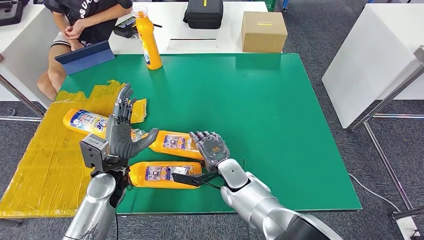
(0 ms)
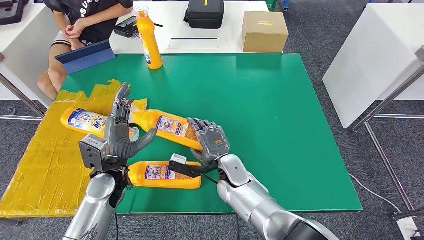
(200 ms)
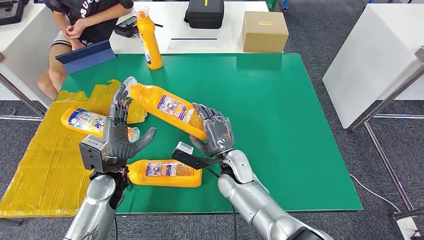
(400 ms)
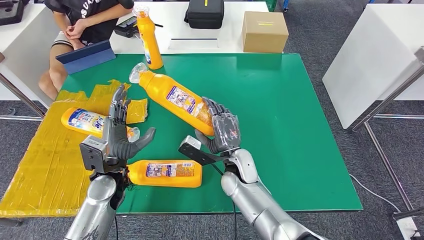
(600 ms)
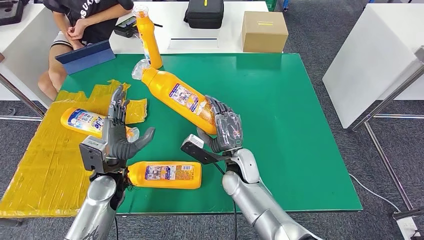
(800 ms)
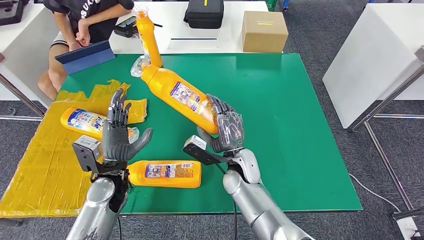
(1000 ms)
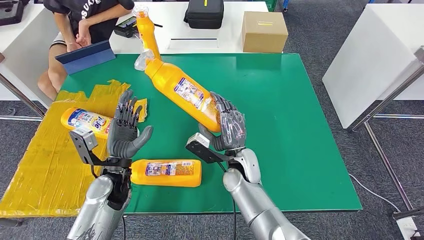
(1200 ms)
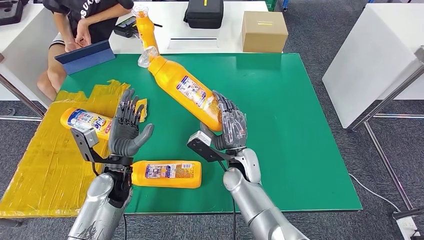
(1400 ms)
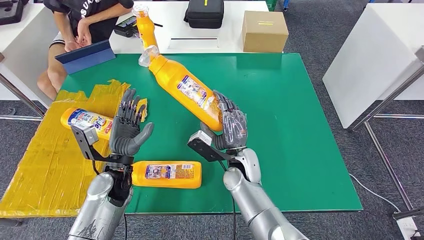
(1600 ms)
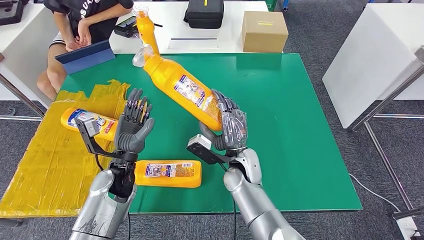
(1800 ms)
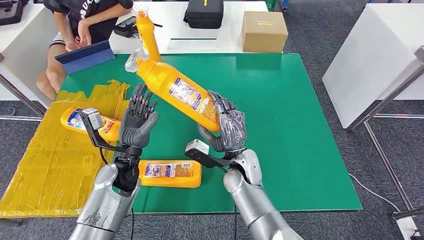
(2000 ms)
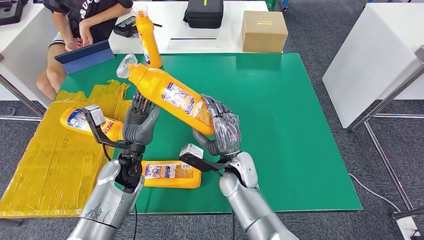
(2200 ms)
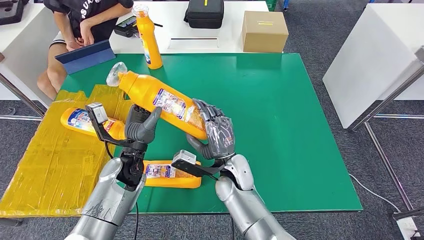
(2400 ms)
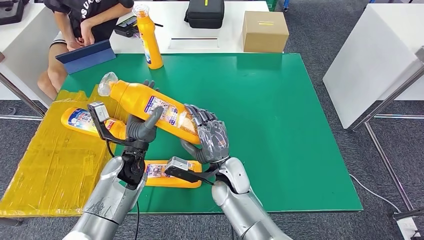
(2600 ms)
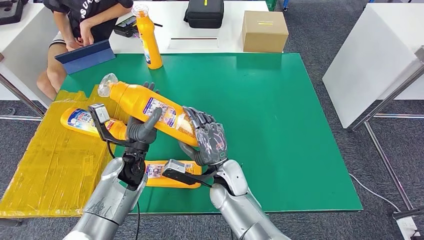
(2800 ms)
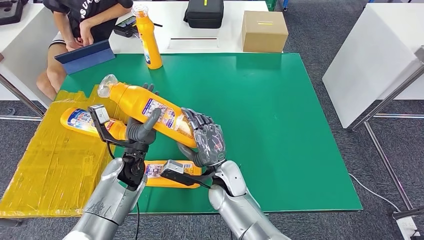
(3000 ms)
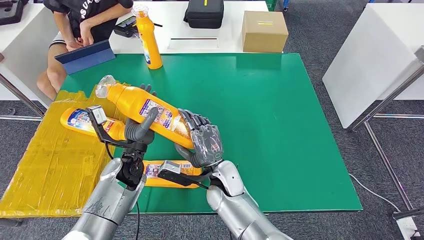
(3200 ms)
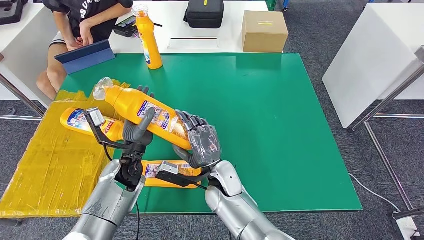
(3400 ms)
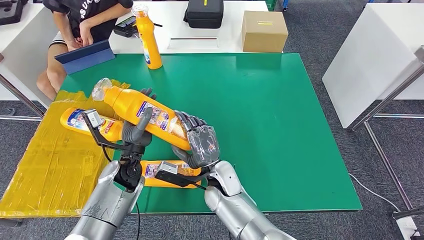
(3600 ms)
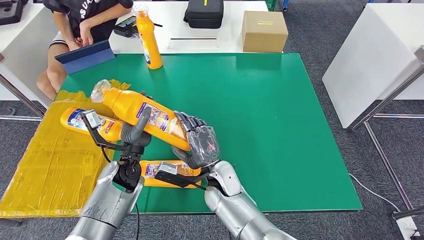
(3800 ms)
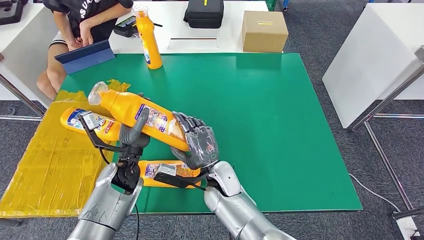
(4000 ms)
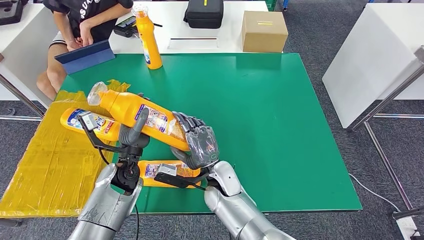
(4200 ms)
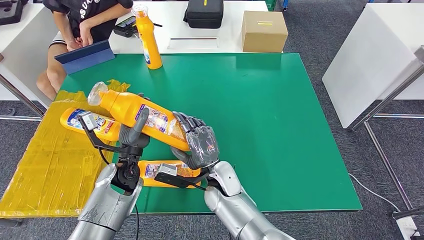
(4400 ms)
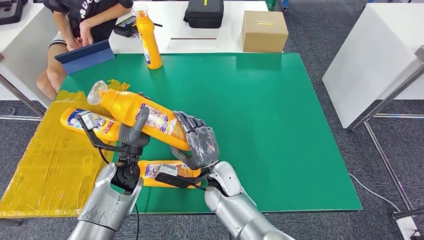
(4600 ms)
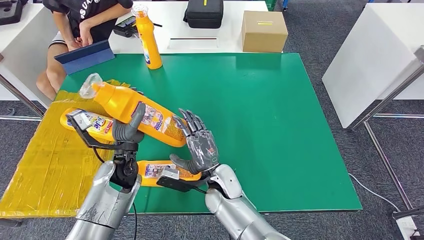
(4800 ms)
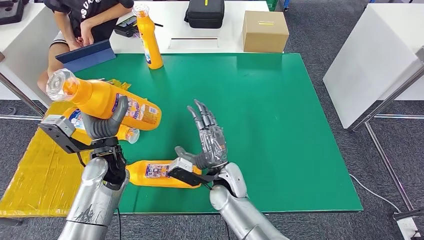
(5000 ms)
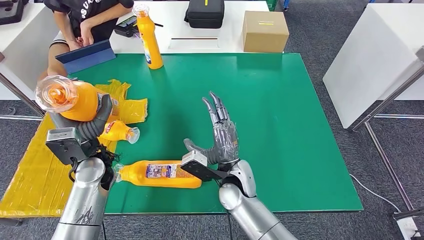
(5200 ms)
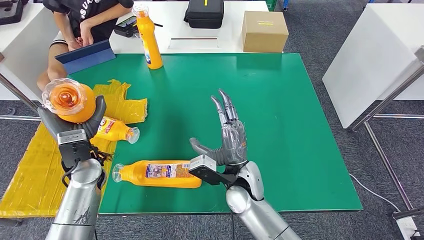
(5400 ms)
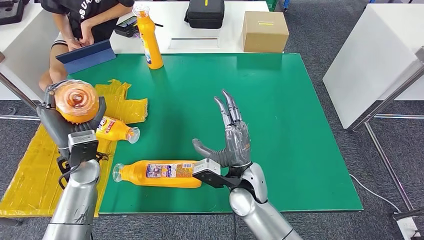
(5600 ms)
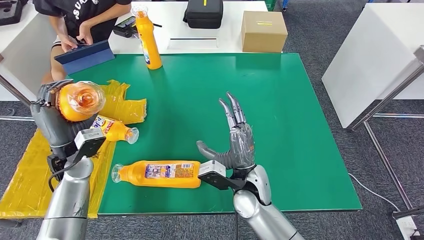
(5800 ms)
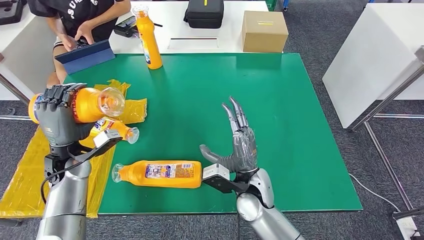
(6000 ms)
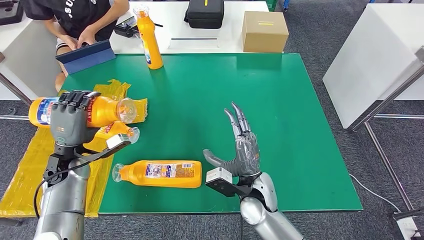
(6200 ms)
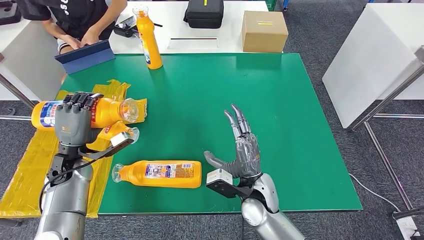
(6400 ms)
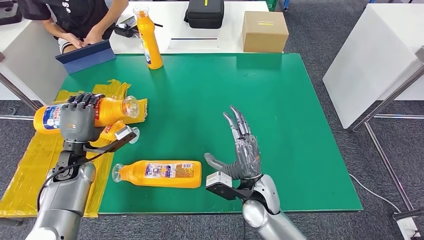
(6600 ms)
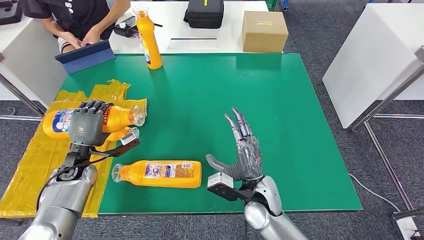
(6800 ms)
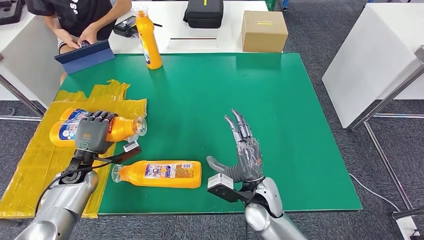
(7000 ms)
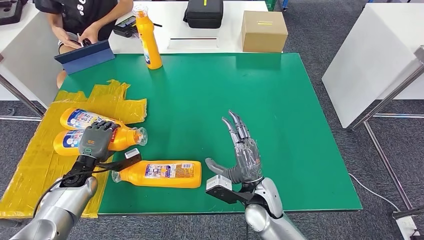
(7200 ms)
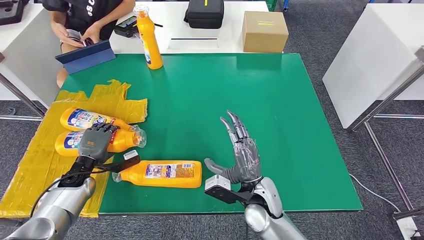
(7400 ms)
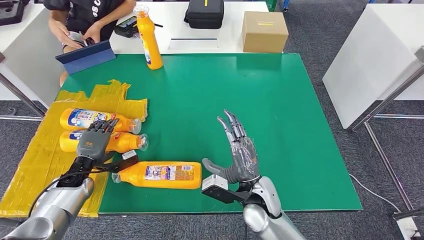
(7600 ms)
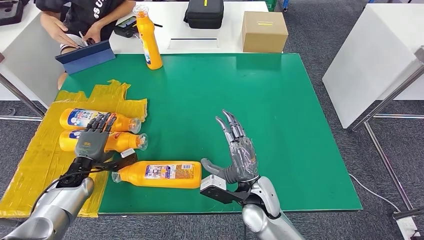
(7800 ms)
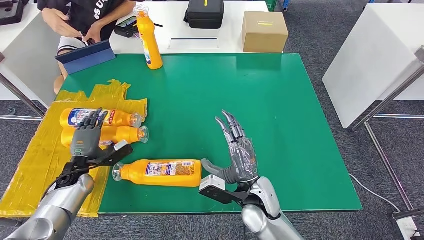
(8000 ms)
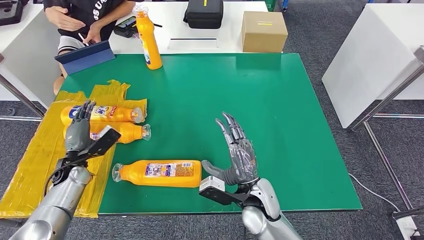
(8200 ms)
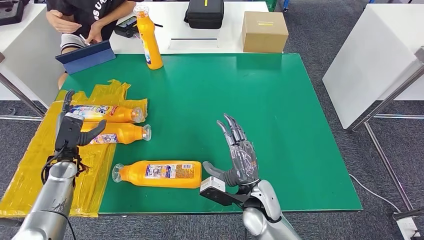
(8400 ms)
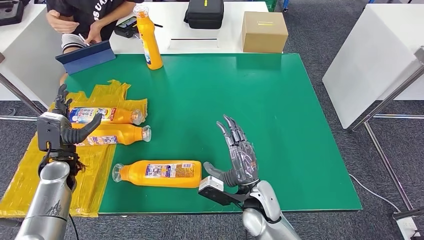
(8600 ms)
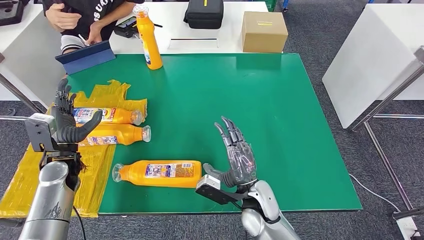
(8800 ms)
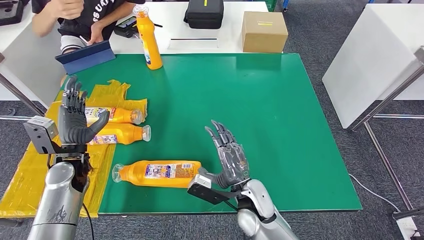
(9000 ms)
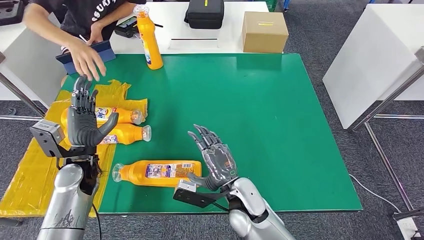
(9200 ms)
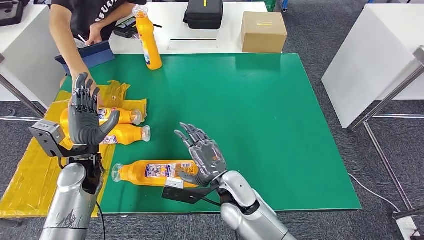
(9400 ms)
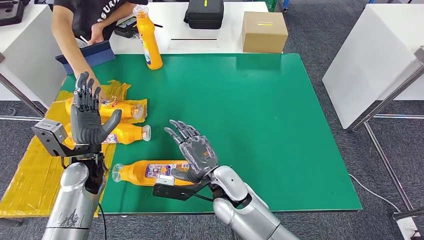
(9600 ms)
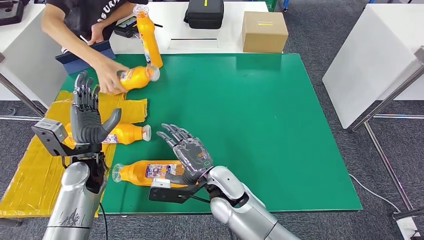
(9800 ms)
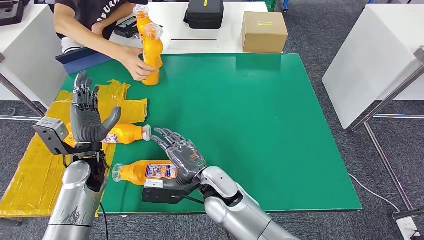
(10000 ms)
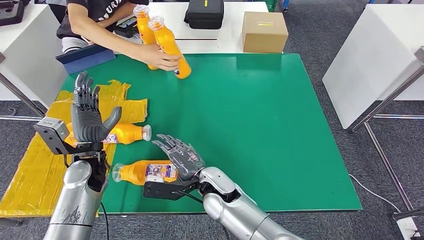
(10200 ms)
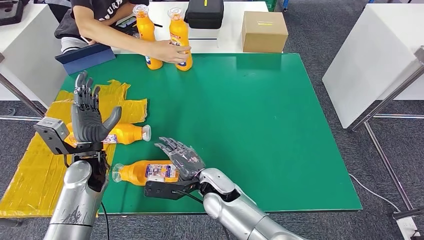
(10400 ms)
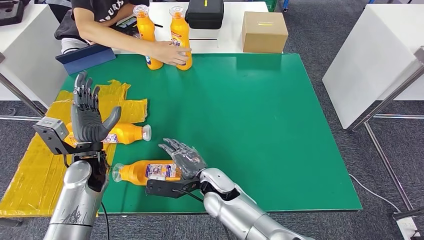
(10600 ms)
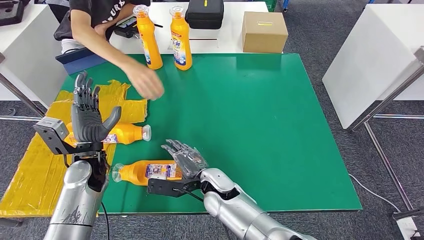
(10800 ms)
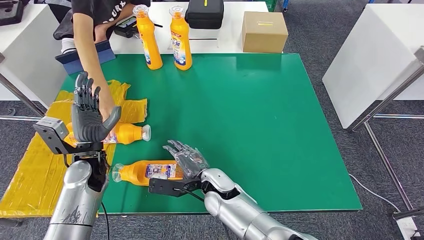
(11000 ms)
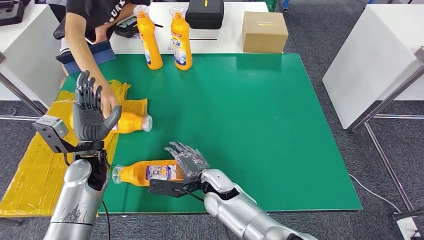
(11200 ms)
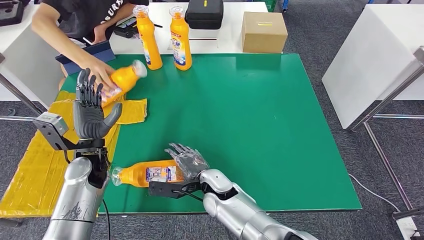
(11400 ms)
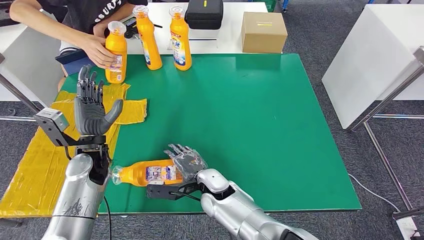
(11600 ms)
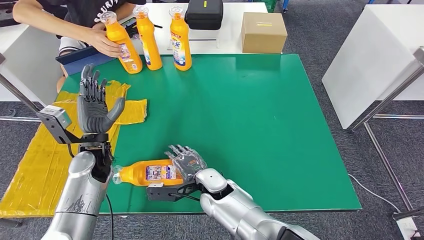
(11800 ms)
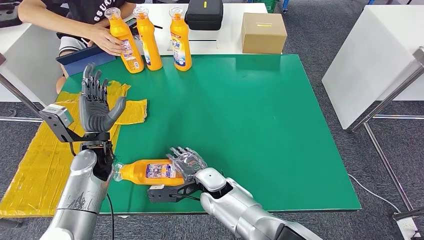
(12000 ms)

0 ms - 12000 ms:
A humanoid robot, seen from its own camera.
Step, 0 ms - 2800 ms: Pick up the fast-moving consumer goods bottle from the table.
Step, 4000 ms - 8000 ms: Flip the fast-moving consumer goods bottle to the front side.
0 ms - 1600 ms: The right hand ends up roughly 5 cm from where it was.
1600 ms - 3000 ms: The right hand changes place by some 5 cm.
3000 ms - 4400 ms: The hands make only small movements.
6000 ms - 7600 ms: The left hand moves downward, approximately 10 cm.
7600 ms - 9000 ms: The left hand travels upward by roughly 10 cm.
9000 ms - 10400 ms: The left hand heads to the right, covering some 5 cm. The right hand travels to the left by some 10 cm.

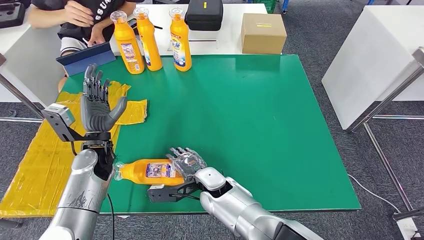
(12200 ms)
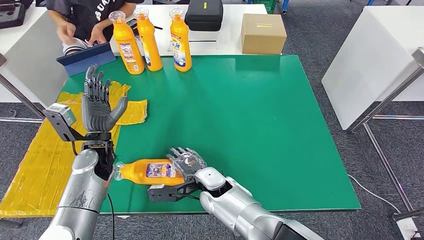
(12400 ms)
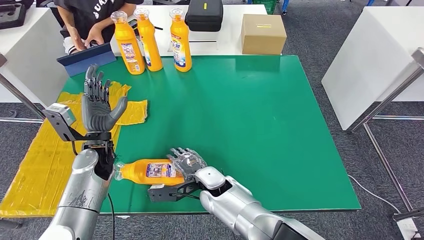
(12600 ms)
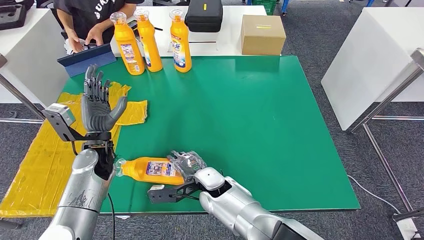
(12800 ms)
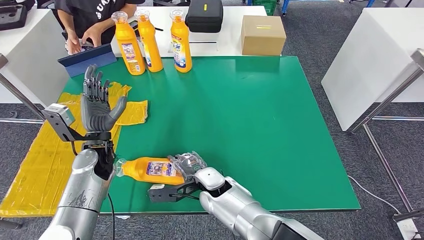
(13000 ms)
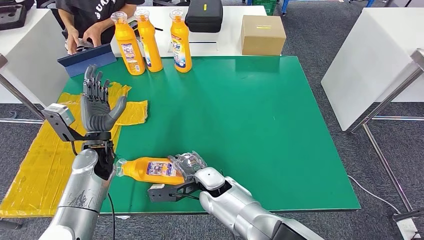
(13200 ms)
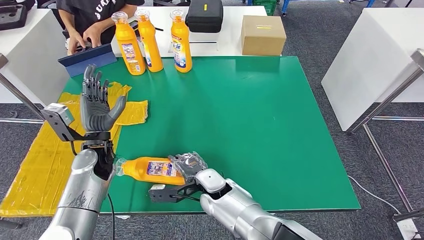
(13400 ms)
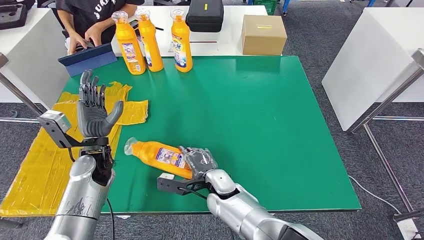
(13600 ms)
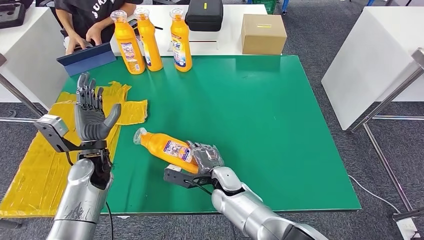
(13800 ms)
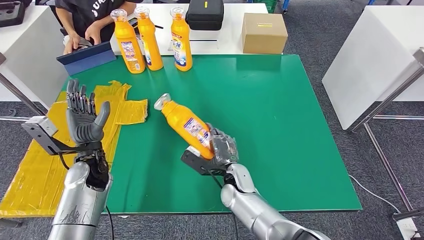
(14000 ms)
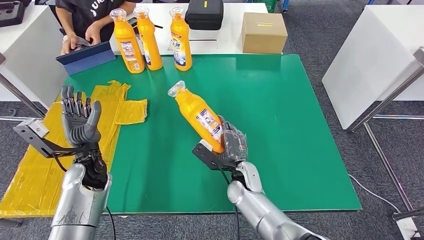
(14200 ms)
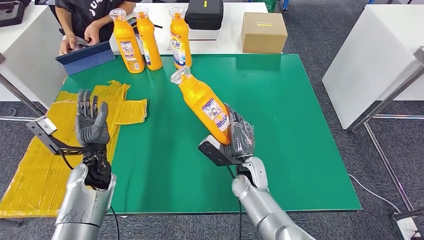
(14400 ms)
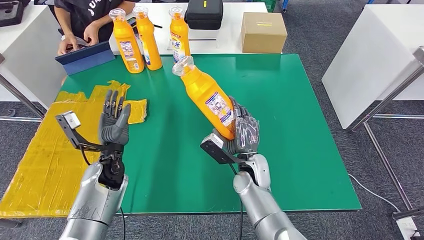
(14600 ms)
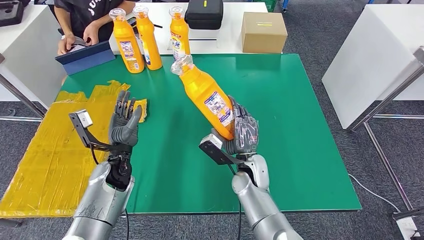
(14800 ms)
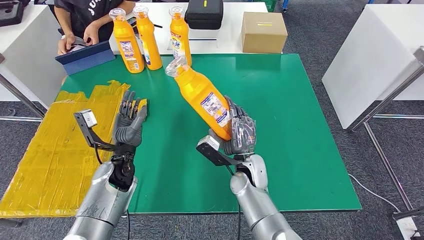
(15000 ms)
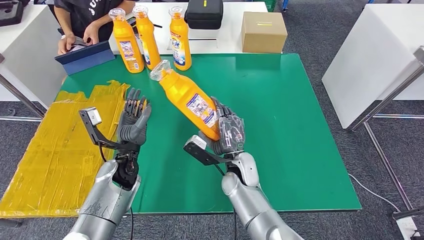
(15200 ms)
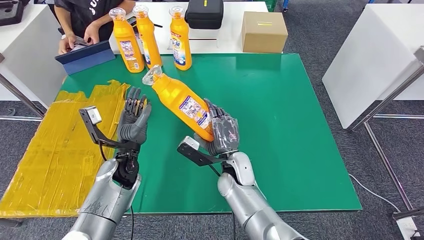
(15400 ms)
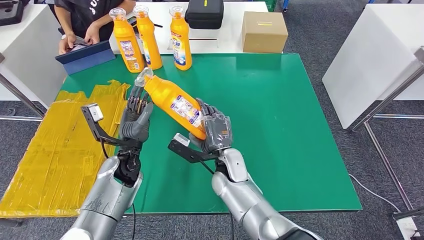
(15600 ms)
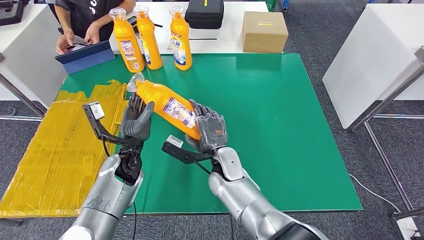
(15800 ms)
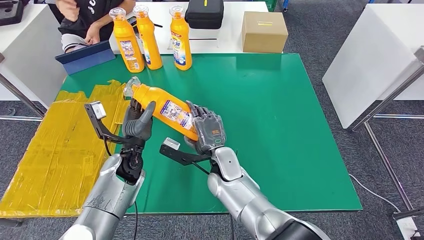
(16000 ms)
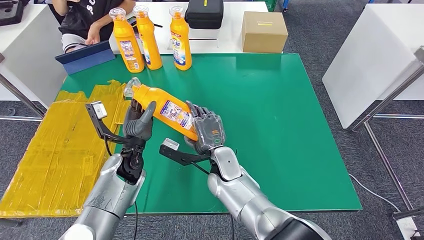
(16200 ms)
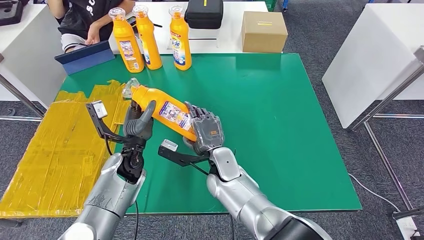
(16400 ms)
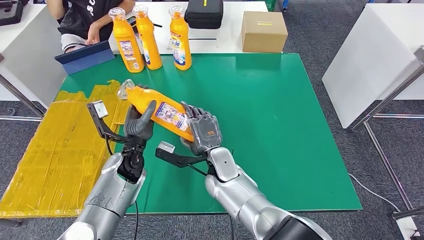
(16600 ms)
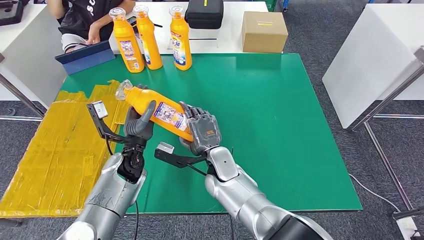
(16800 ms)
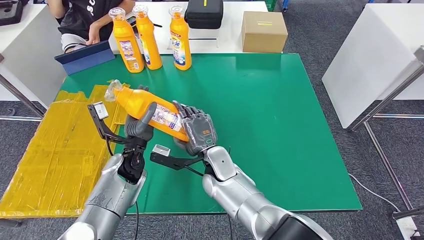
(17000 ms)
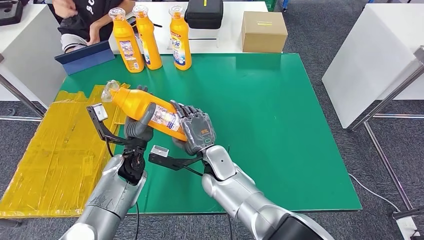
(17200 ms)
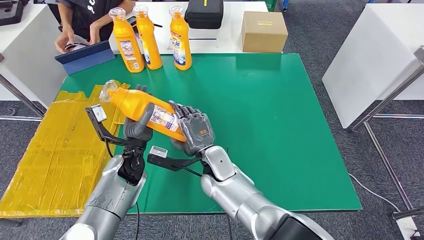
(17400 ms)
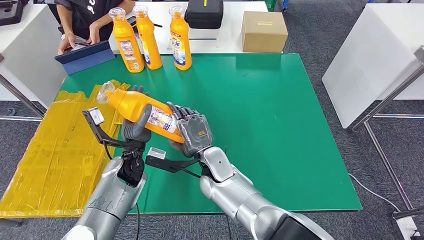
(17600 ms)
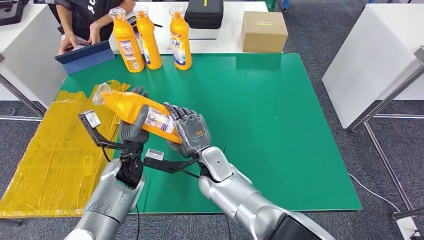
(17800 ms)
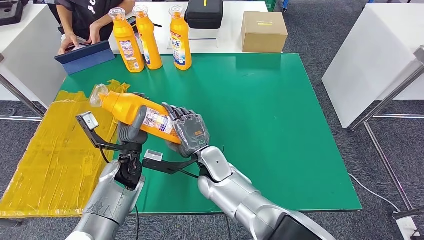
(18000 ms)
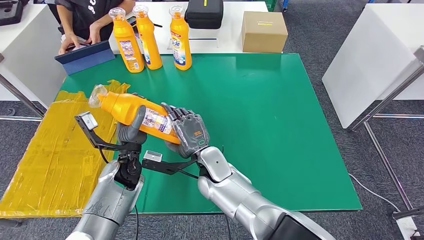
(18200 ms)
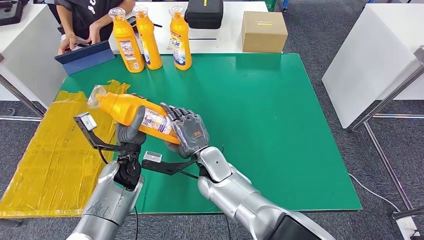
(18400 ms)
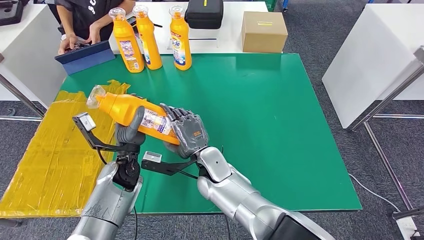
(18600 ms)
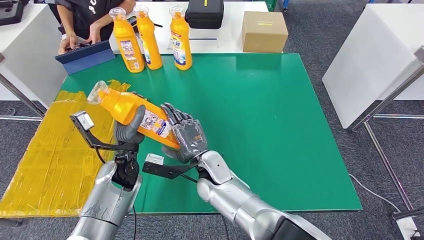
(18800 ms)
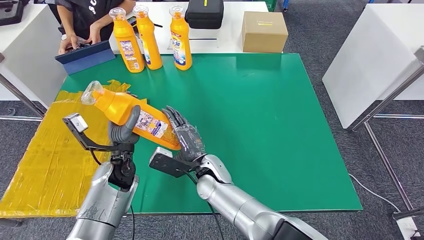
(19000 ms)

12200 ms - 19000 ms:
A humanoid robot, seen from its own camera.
Step, 12200 ms - 16600 ms: Pick up the fast-moving consumer goods bottle from the table.
12200 ms - 13600 ms: The hands make only small movements.
15000 ms - 16200 ms: The right hand is displaced to the left by approximately 5 cm.
16200 ms - 17600 ms: There are only small adjustments of the hands.
